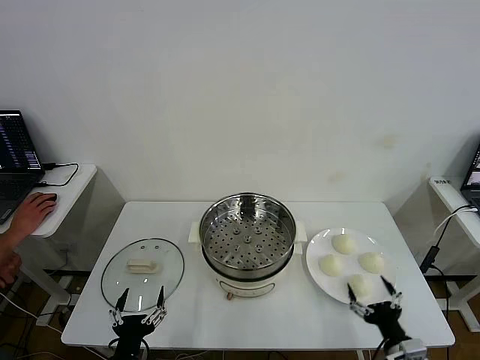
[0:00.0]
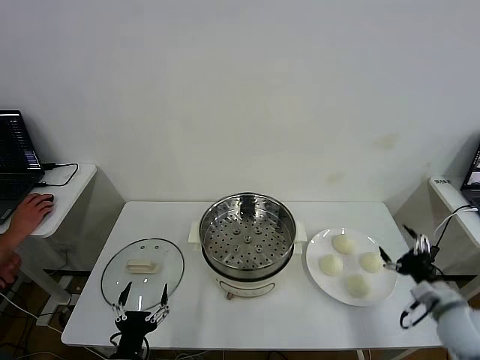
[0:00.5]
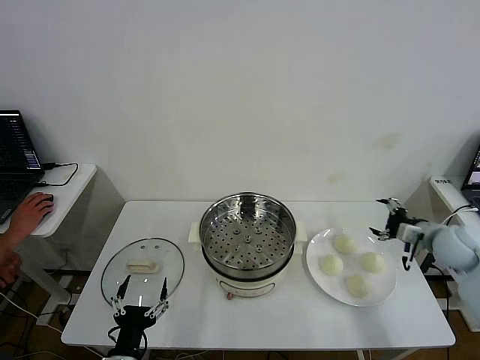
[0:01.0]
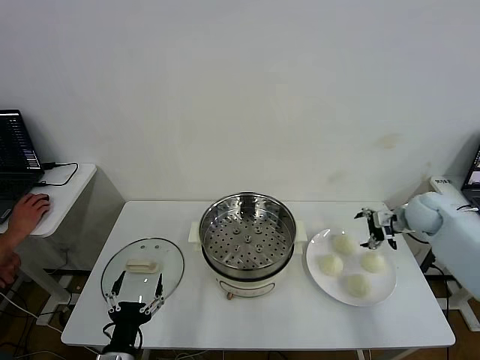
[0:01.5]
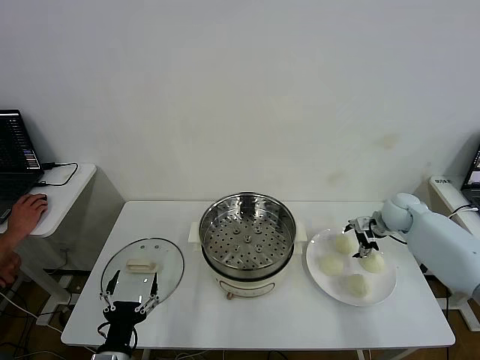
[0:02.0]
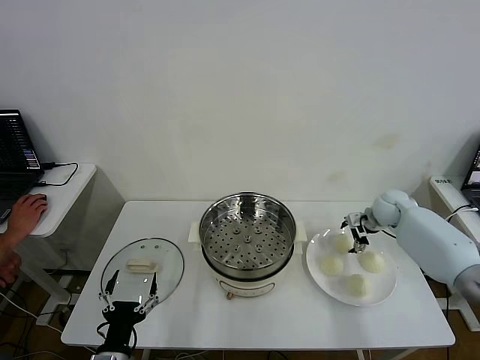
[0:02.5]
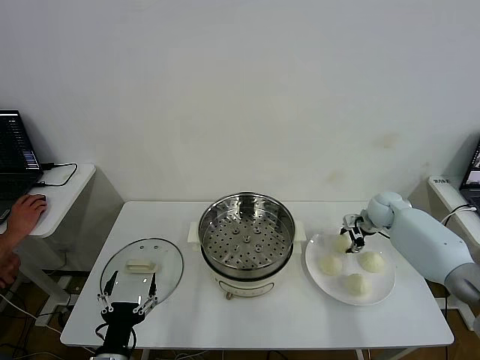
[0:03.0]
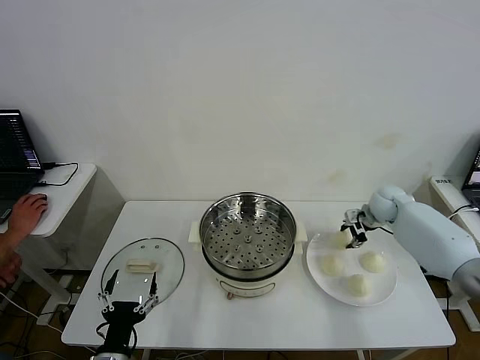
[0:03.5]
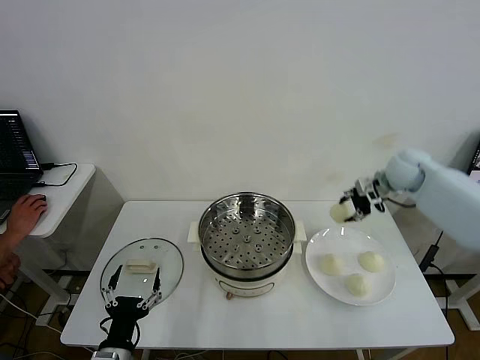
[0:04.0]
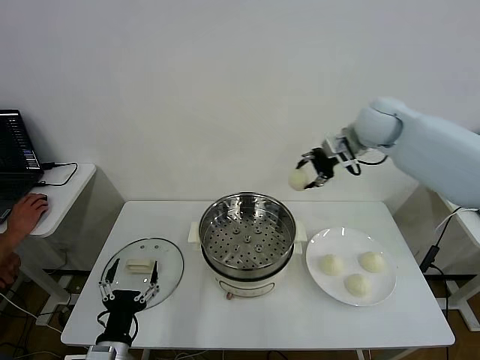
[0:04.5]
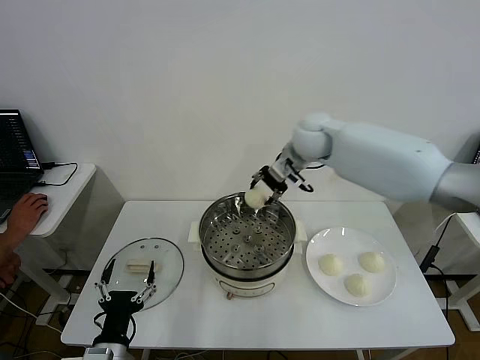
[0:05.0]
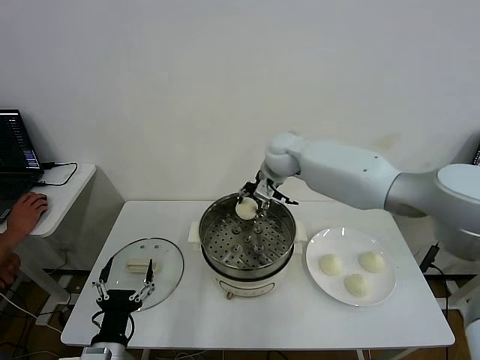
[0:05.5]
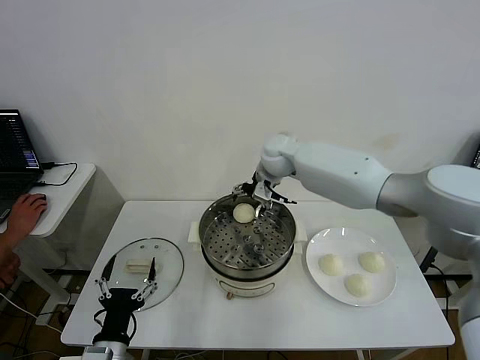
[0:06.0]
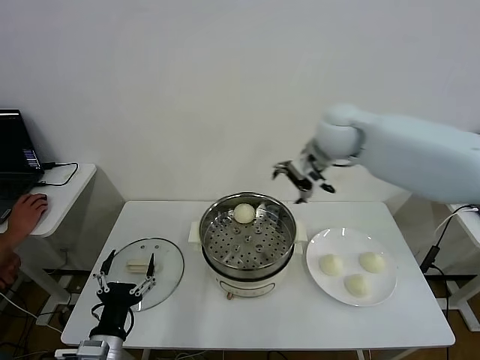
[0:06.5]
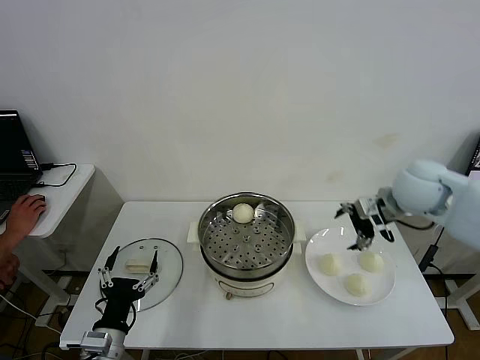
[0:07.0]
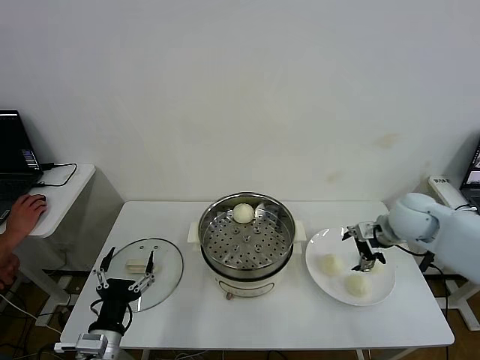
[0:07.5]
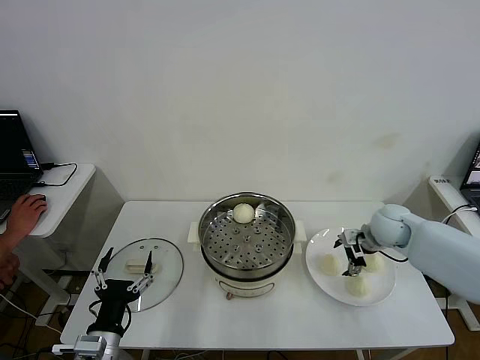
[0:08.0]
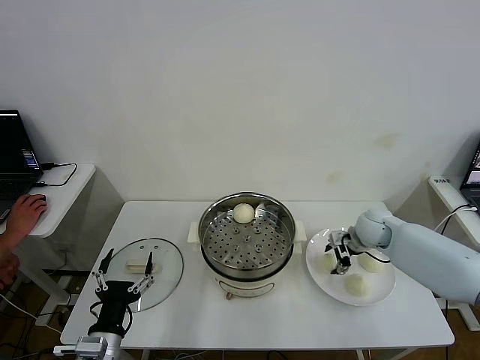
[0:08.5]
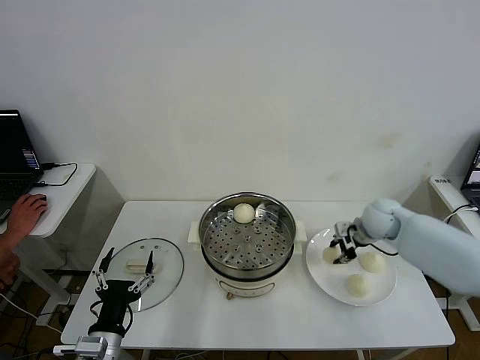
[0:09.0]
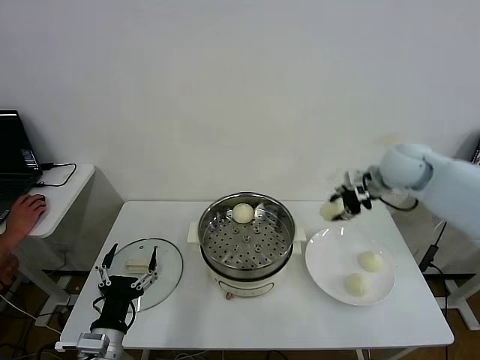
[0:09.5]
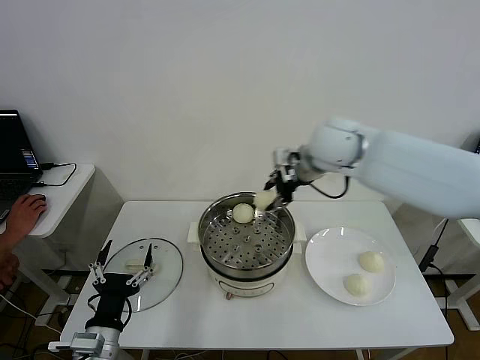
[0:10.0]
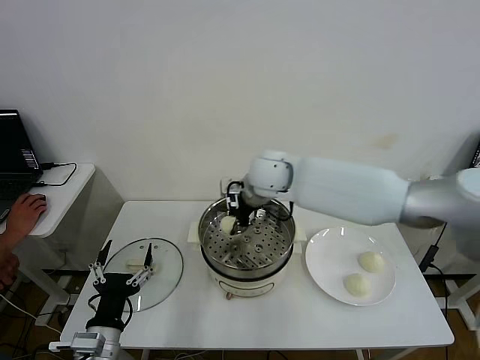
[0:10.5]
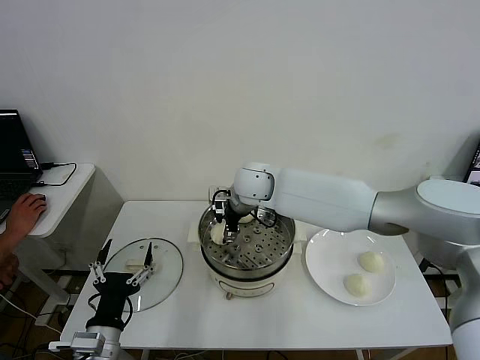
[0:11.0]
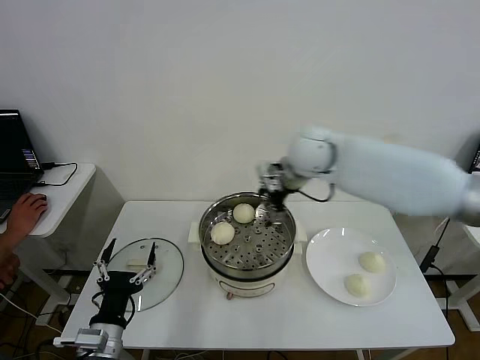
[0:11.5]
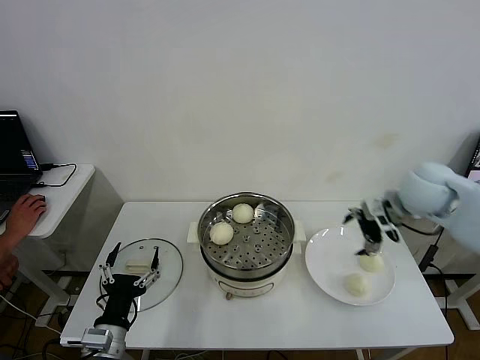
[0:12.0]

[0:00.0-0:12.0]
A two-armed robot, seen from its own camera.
Step, 0:00.0 to 0:03.0: Grasp the baozi in the plate with right gripper.
Step, 0:03.5 to 0:05.5: Place the baozi on the steamer with right gripper.
Step, 0:06.0 to 0:08.5: Grasp the baozi in the plate with right gripper.
Step, 0:09.0 to 0:11.0: Place the baozi on the steamer with right gripper.
0:02.0 to 0:04.0: The right gripper shifts about 15 cm upward, and closes up.
0:04.0 to 0:06.0: The right gripper goes about 30 cm to the left, and opens.
0:06.0 to 0:08.0: The right gripper moves to the right, downward and backward, approximately 30 cm.
0:08.0 to 0:10.0: The right gripper heads upward and to the left, covering about 30 cm, and closes.
0:10.0 to 0:12.0: The right gripper goes roughly 20 cm to the right, and opens.

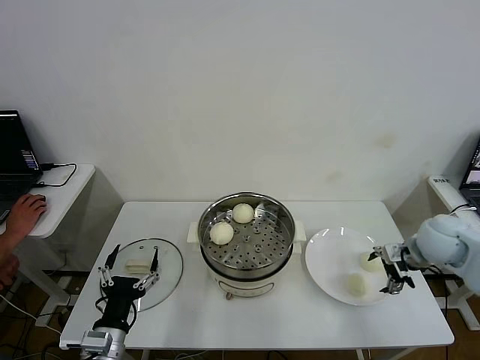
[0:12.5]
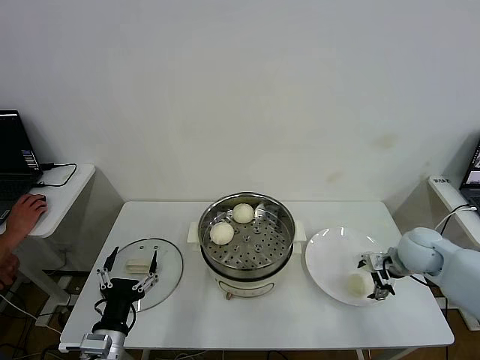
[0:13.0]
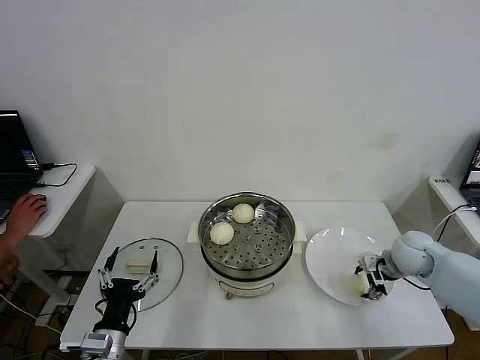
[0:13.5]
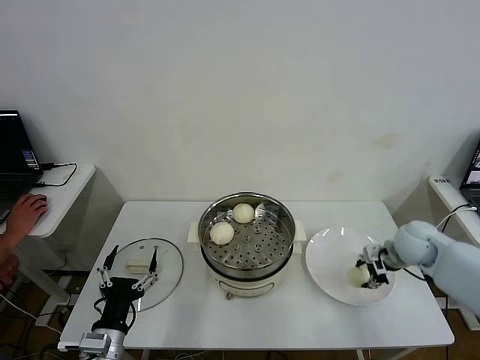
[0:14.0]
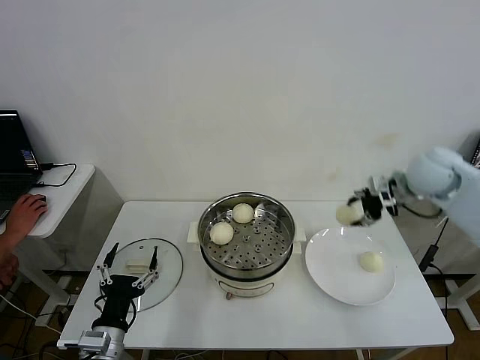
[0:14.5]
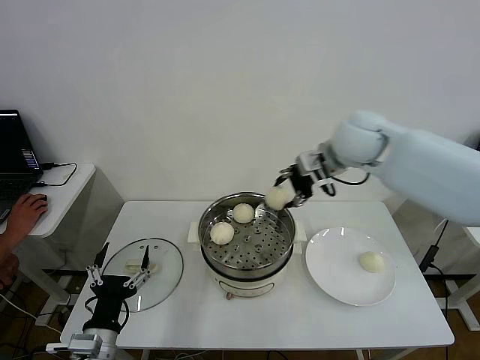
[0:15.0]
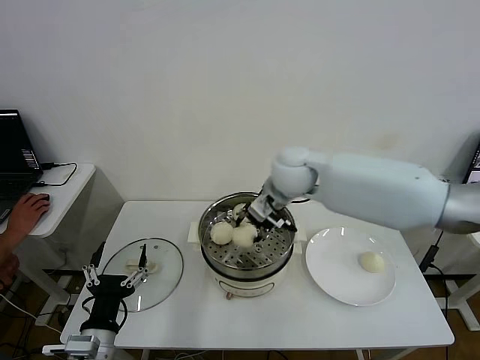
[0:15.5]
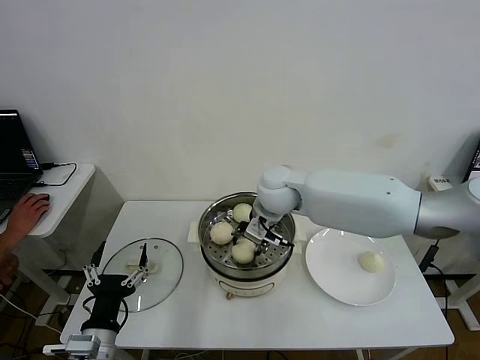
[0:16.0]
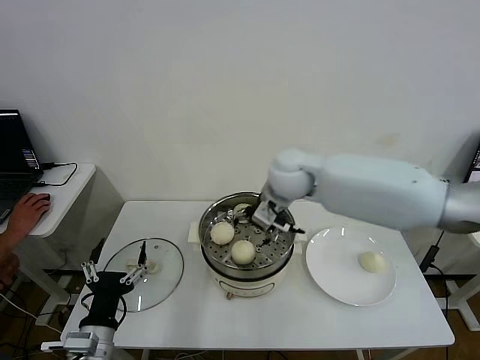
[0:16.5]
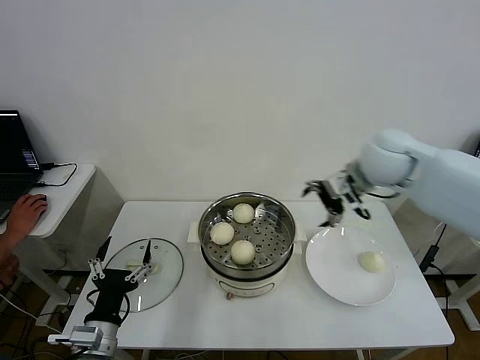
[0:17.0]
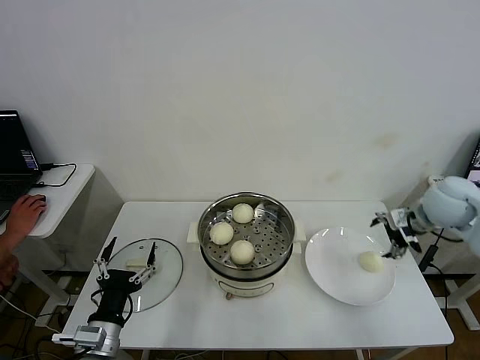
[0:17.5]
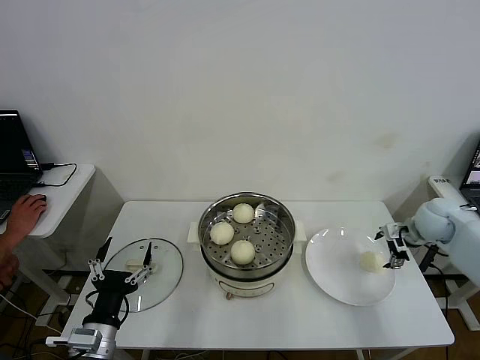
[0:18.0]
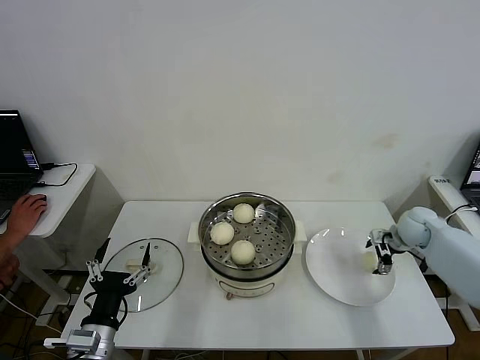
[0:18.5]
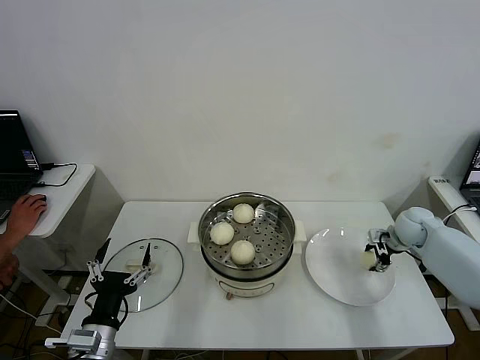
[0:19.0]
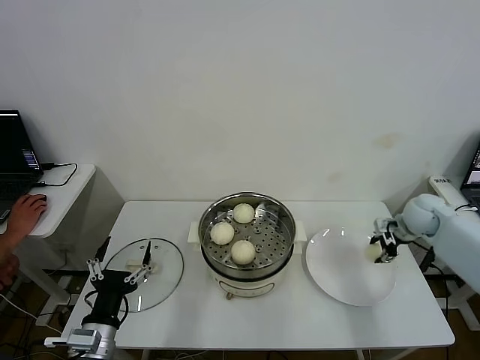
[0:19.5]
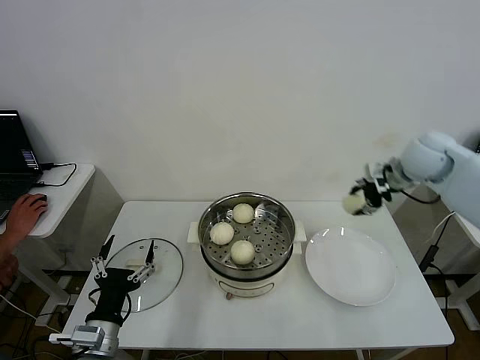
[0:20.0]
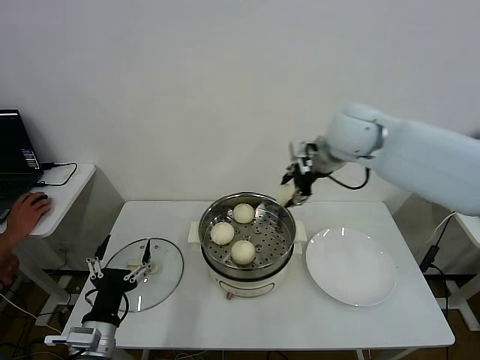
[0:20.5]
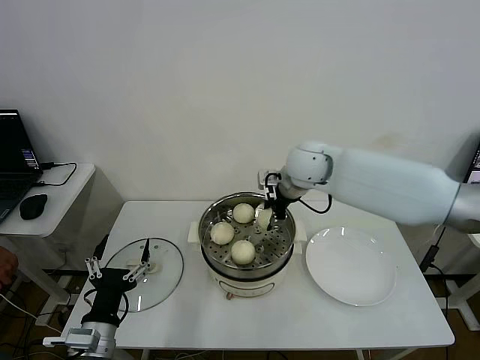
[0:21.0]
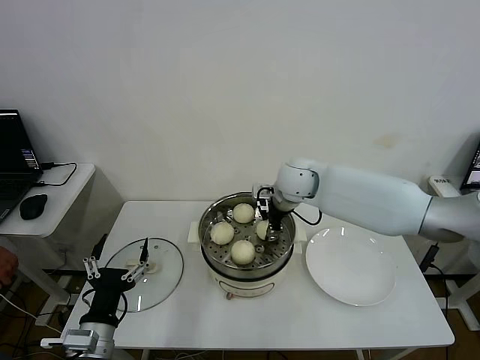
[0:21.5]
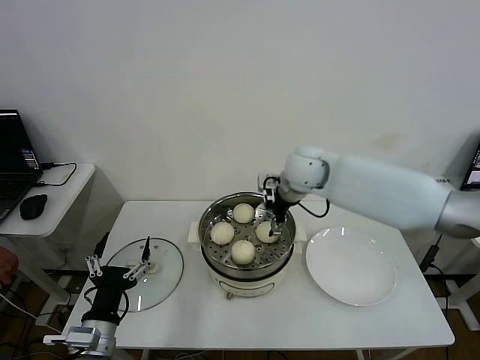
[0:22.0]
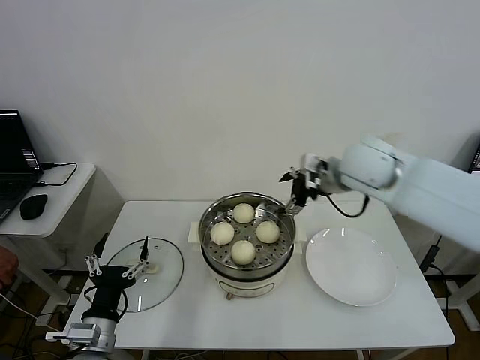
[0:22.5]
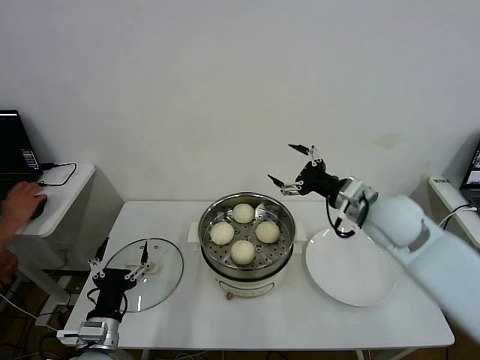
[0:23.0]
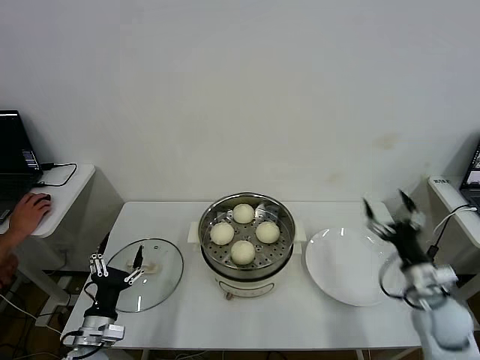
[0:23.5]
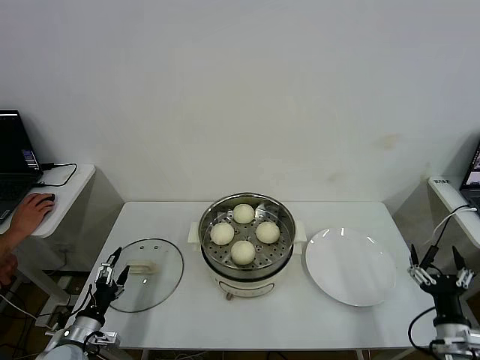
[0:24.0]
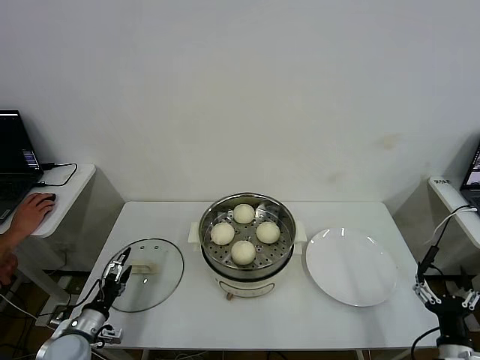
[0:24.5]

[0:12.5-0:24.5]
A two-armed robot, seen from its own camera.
Step, 0:14.0 to 0:16.0: Place the baozi on the steamer with right gripper.
Step, 0:16.5 to 0:19.0: Grasp the baozi in the plate with right gripper.
Step, 0:19.5 to 0:22.0: Place the baozi on the steamer with right gripper.
0:12.5 to 0:14.5: The right gripper heads upward and forward, covering approximately 15 cm, and closes its fingers.
0:14.5 to 0:16.5: The right gripper is displaced to the left by approximately 25 cm, and opens up.
0:16.5 to 0:18.5: The right gripper travels to the right and downward by approximately 40 cm.
0:18.5 to 0:20.5: The right gripper heads upward and to the left, covering approximately 35 cm, and closes.
0:20.5 to 0:22.5: The right gripper goes downward and returns, about 15 cm each way, and opens.
0:22.5 to 0:24.5: The right gripper is displaced backward, downward and to the right by about 50 cm, while the left gripper moves to the left, downward and forward, about 20 cm.

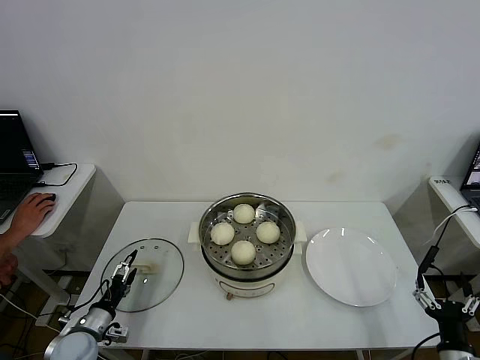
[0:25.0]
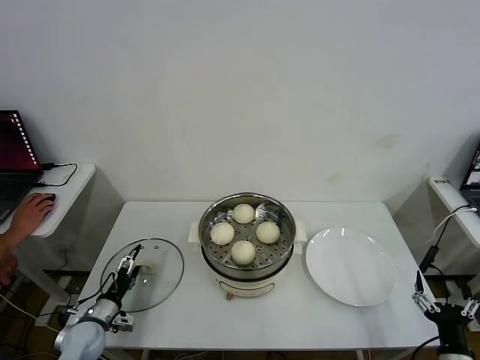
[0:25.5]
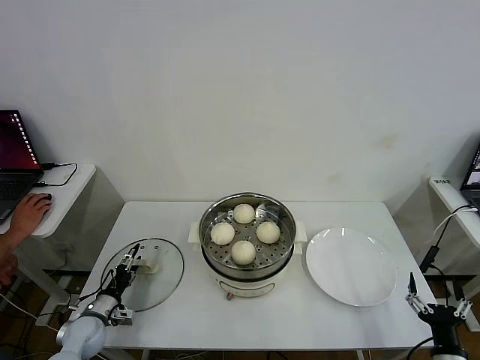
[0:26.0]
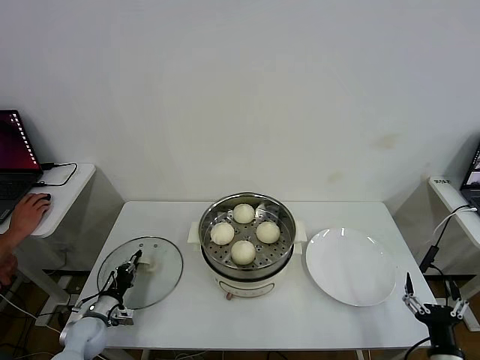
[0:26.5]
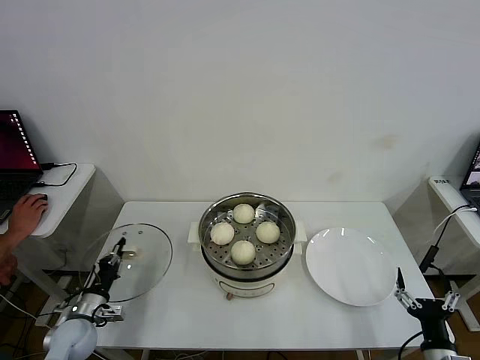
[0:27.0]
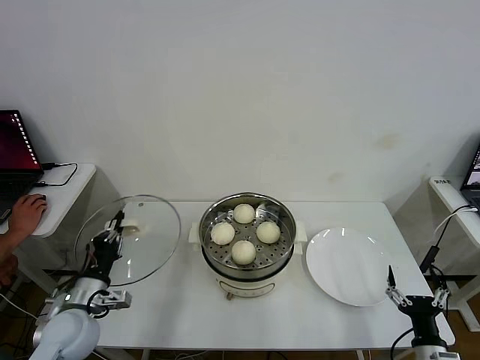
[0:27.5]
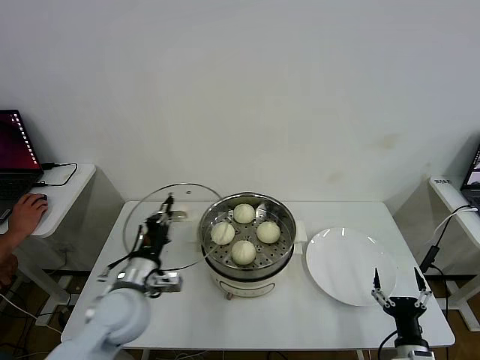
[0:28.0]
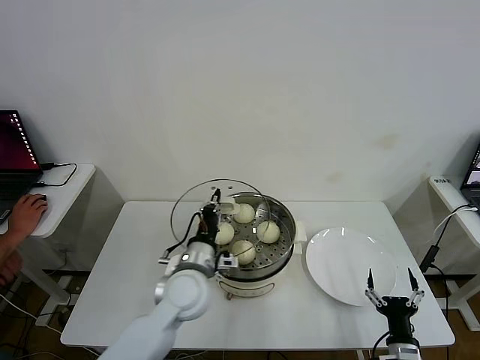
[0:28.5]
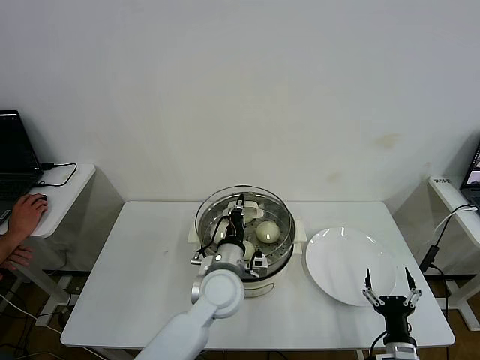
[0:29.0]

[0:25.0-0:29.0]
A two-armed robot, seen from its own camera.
0:25.0 to 0:27.0: The left gripper closes.
0:27.0 to 0:29.0: The left gripper heads to the right and upward, covering roughly 40 cm; the right gripper is displaced to the left by about 5 cm.
